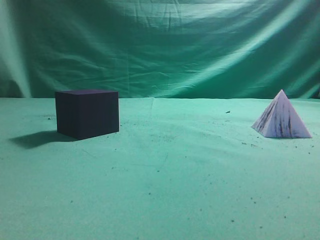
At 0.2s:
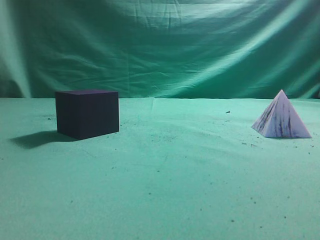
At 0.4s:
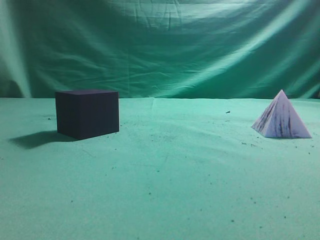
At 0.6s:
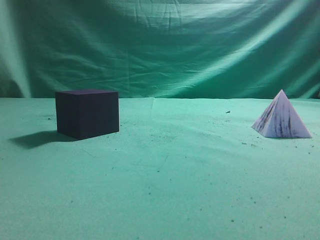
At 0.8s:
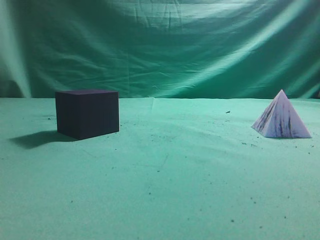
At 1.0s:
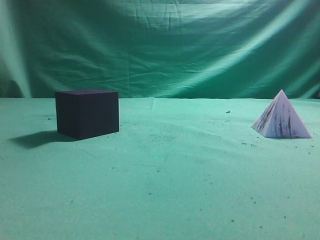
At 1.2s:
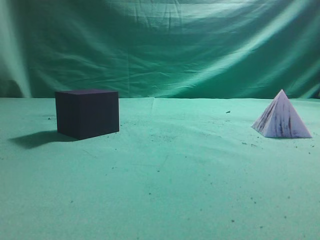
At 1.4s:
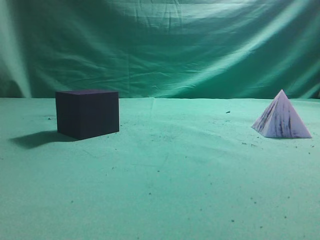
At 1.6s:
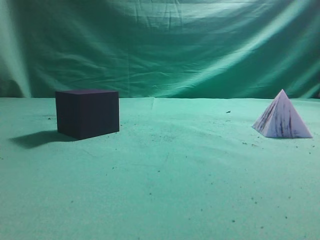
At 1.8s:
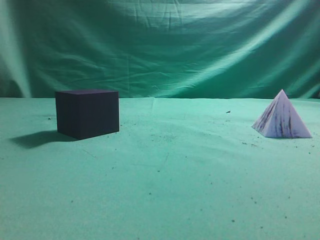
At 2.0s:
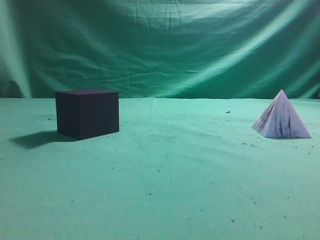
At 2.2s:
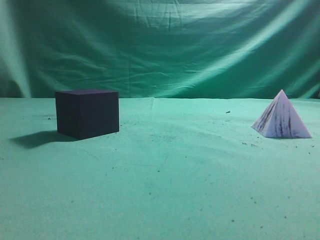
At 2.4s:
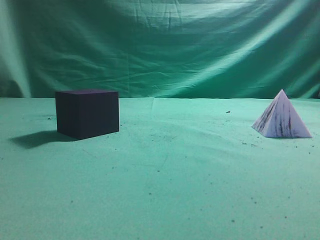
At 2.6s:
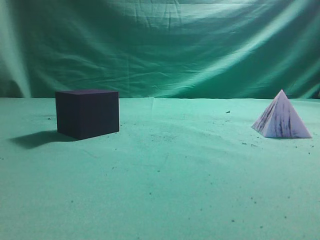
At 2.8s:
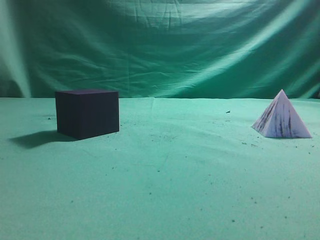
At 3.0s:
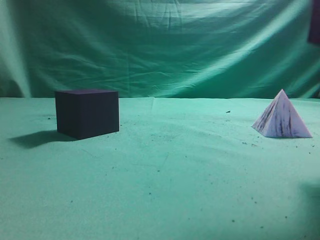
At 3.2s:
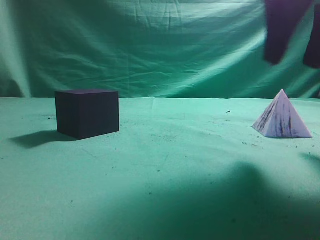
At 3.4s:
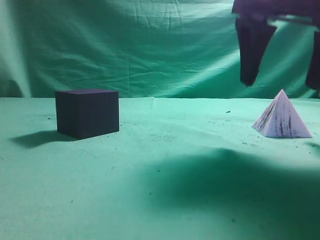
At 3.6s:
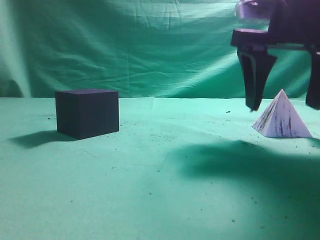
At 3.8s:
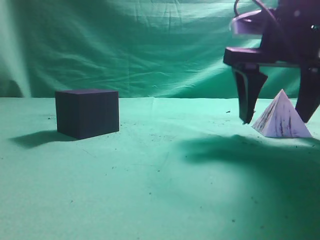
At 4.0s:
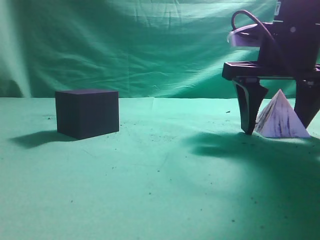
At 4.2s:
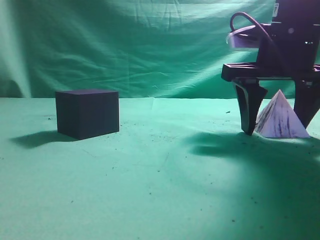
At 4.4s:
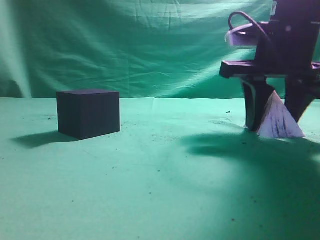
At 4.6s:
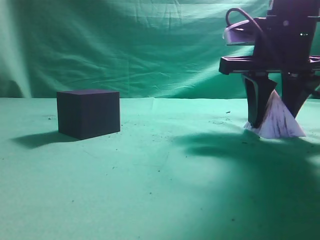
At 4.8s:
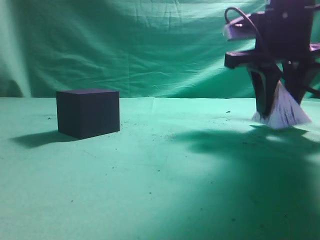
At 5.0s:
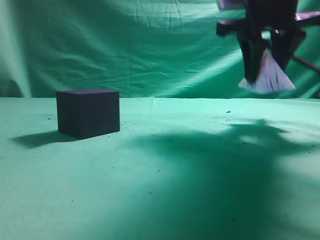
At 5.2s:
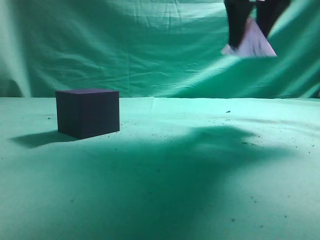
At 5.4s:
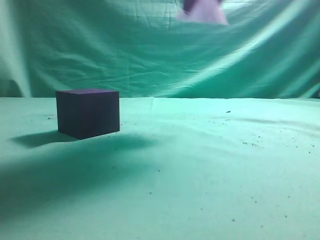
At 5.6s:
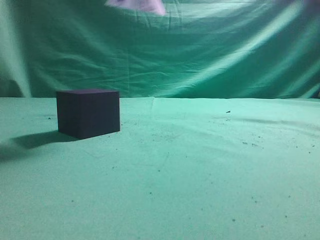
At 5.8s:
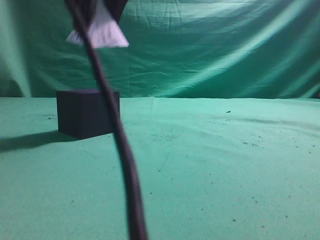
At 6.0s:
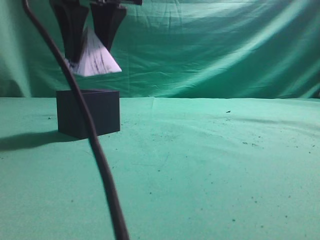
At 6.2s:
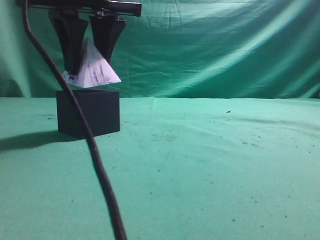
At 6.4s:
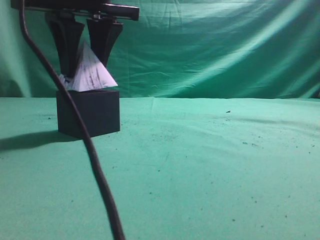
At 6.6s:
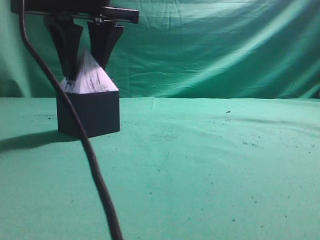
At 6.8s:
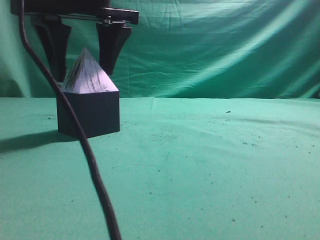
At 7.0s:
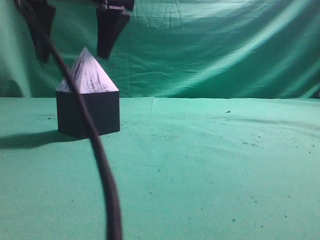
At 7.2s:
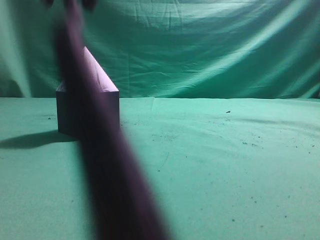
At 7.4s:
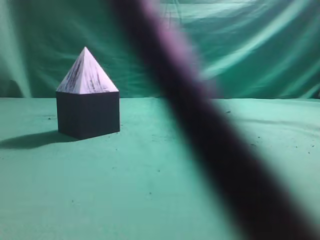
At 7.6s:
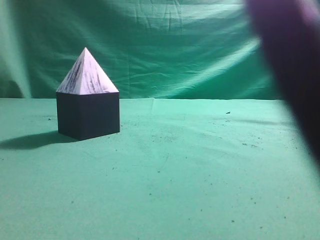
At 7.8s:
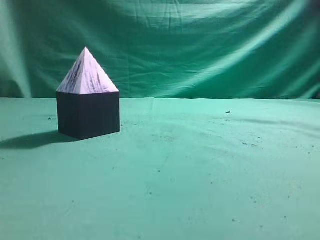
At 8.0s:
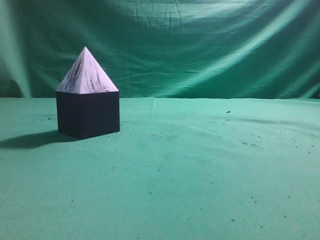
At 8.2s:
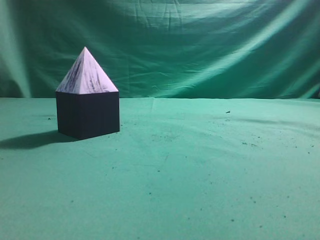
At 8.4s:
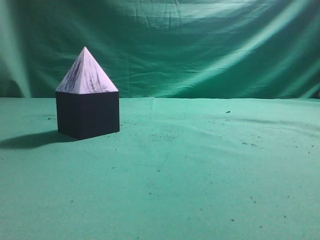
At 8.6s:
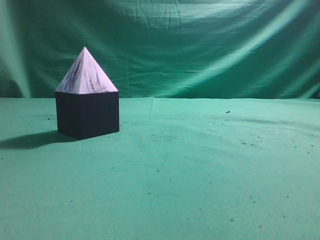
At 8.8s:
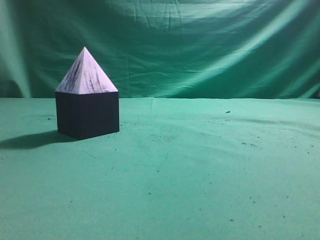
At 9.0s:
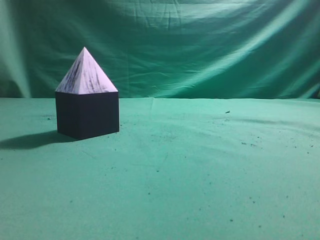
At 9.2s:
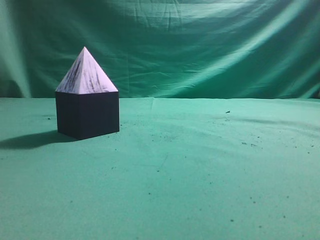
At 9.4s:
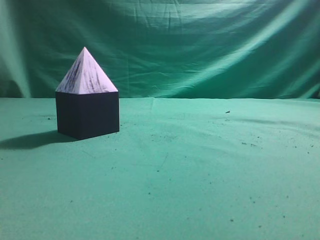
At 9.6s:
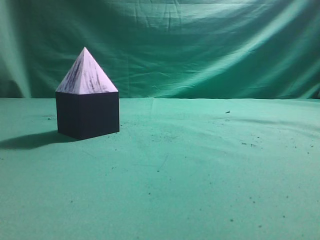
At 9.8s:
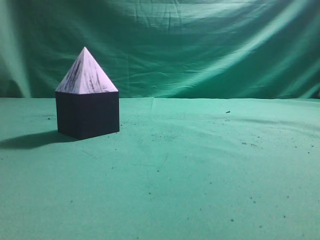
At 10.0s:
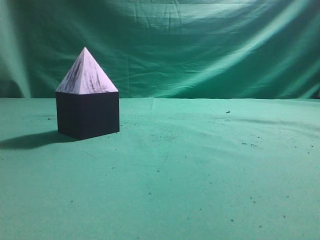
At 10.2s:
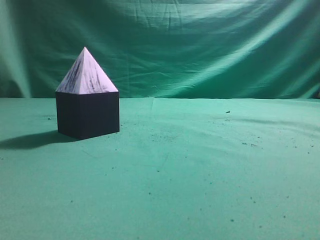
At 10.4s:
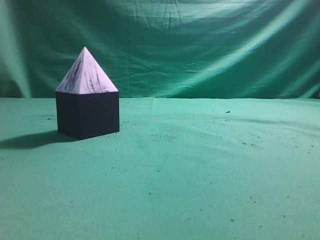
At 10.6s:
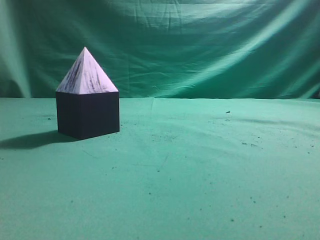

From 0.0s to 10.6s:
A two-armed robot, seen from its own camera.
Task of the whole recording: pick up the square pyramid from the table and place it on the cube block.
Step, from 0.0s to 5.0s: Grasp the triangular block.
Step, from 5.2s to 7.0s: Place the block onto the cube-shaped block.
From 1.6s to 3.0s: The right gripper heads forward and to the left, covering some 25 cm, and opens up.
From 3.0s to 4.6s: The right gripper heads forward, covering approximately 5 cm, and closes up.
From 4.6s to 6.0s: The right gripper travels to the left by roughly 25 cm.
From 6.0s to 7.6s: The right gripper moves upward, to the right and backward, approximately 30 cm, and closes.
From 7.6s to 9.0s: The right gripper is displaced to the right, backward and downward by roughly 30 cm.
